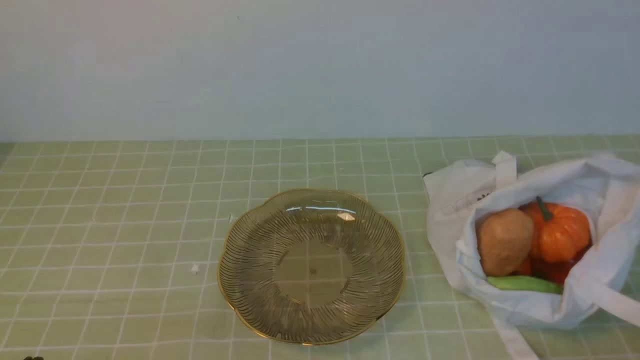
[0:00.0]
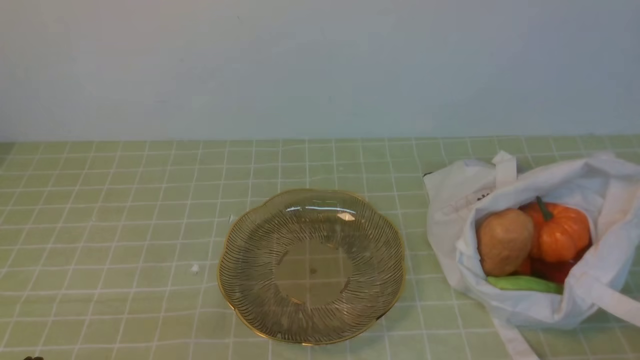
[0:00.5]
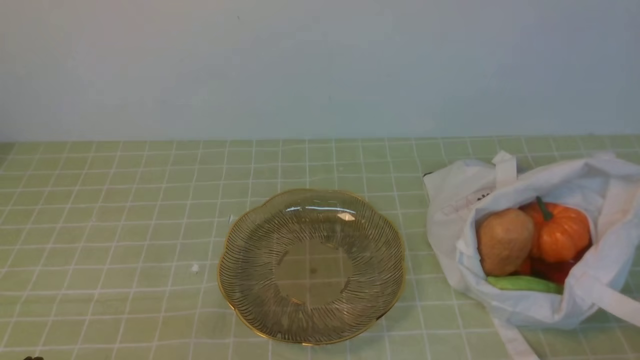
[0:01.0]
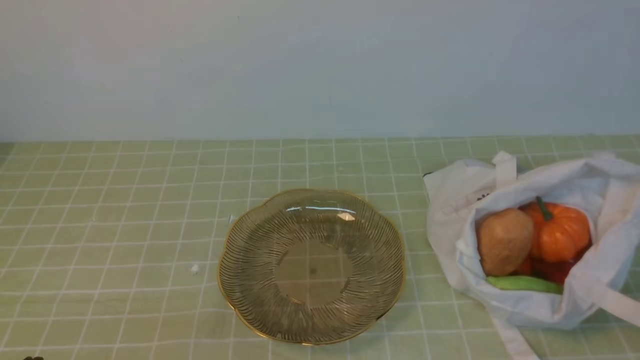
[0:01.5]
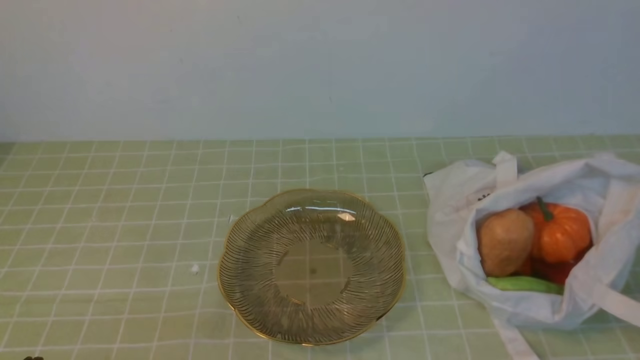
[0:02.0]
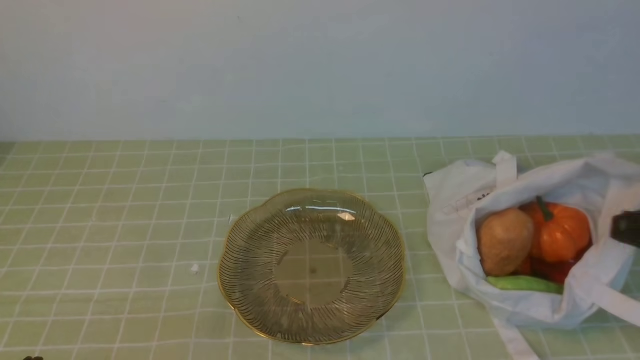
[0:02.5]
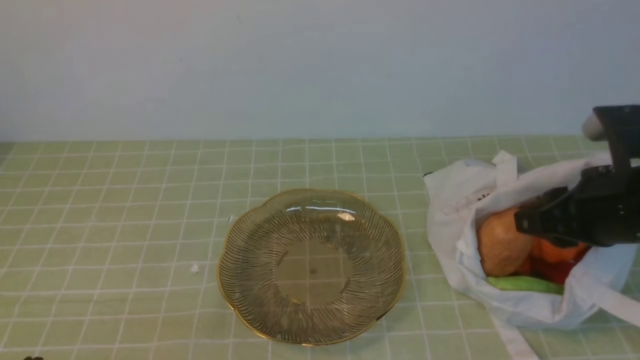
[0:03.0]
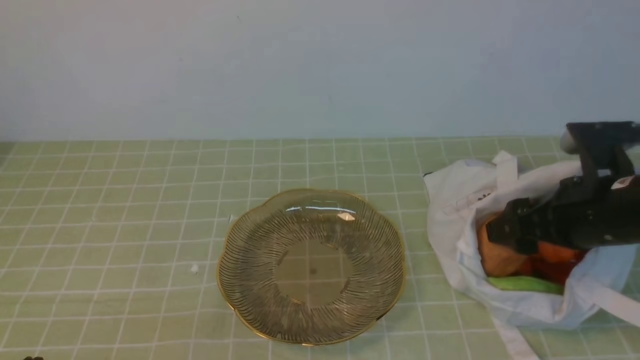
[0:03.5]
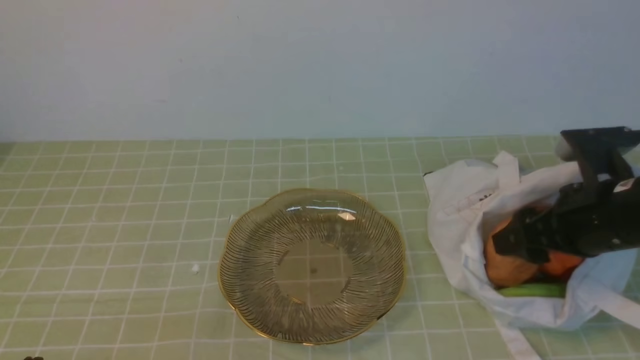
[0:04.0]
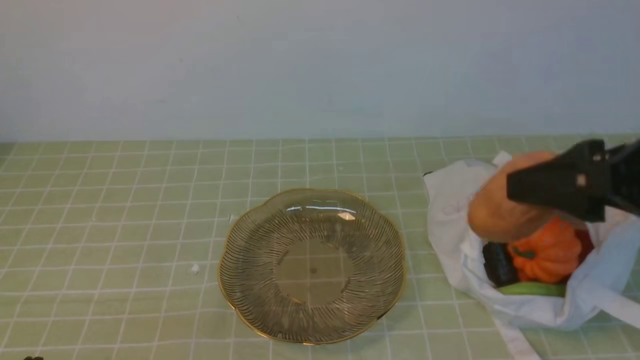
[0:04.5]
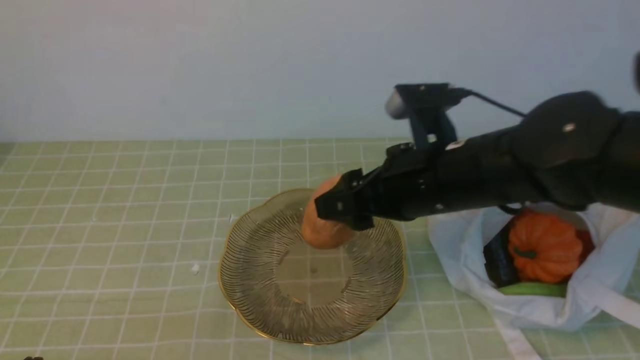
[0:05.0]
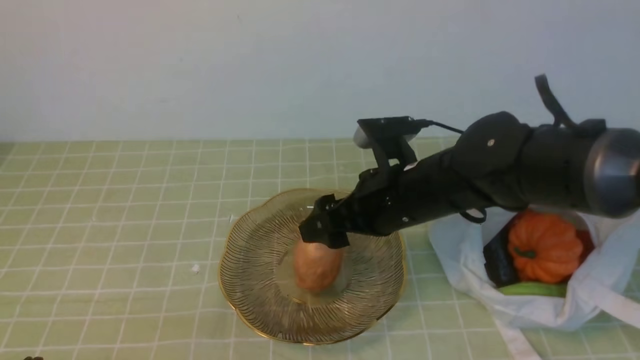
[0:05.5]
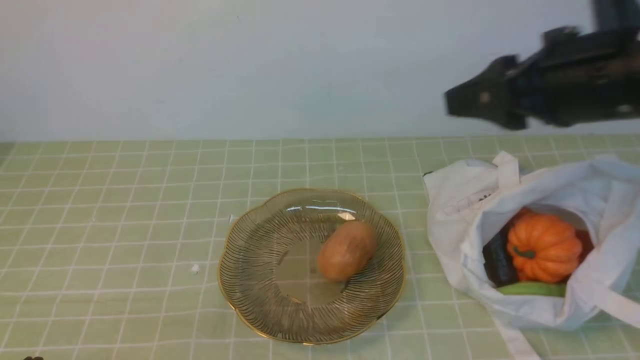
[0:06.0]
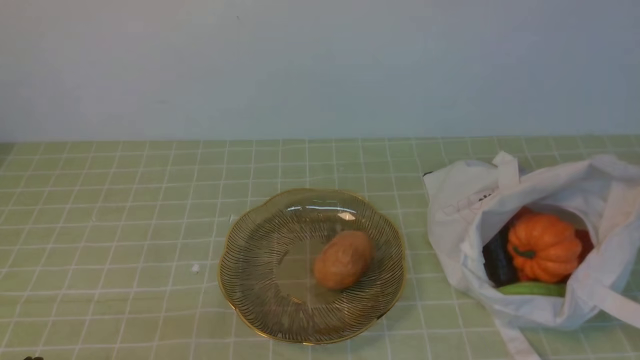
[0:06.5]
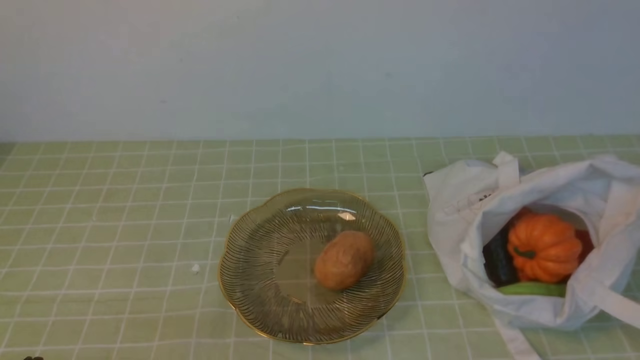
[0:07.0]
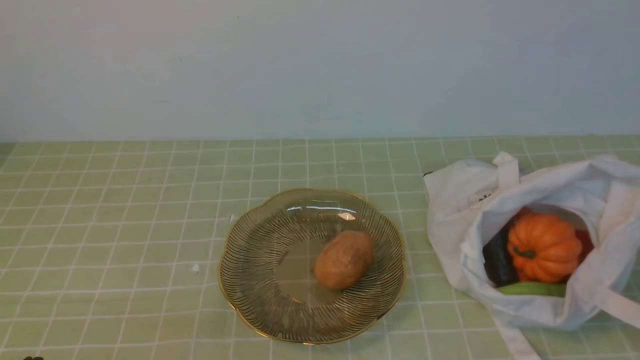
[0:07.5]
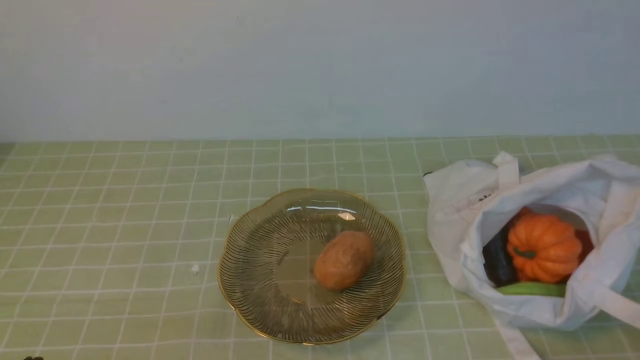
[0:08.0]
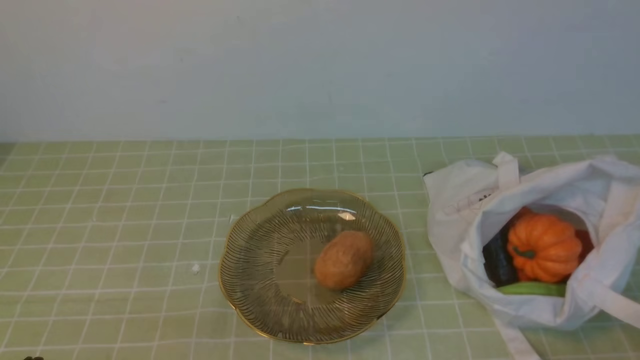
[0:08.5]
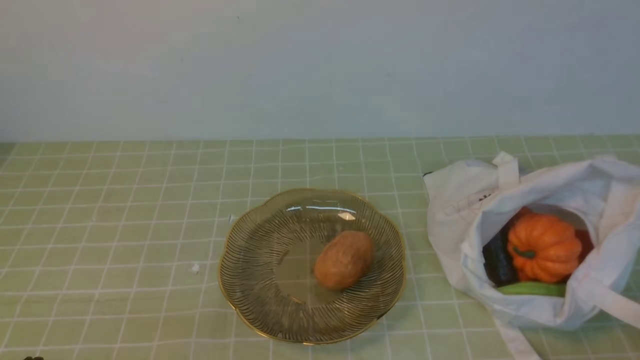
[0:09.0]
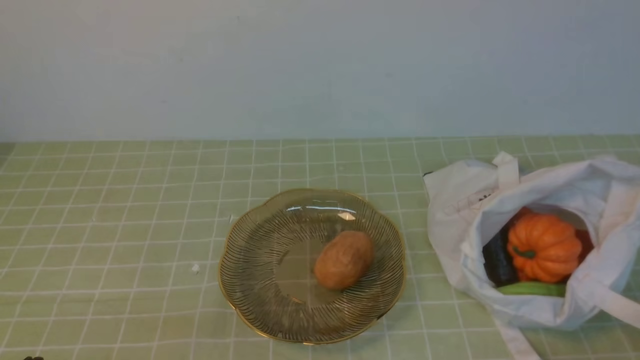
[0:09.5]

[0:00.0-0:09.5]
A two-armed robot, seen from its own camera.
Task of the whole recording: take vegetables from bag on green coffee tablecloth place on plate.
Step, 0:00.0 to 0:03.5: Grasp the potato with right gripper.
Step, 0:04.0 to 0:05.5: Place the potato on the plate with right gripper.
0:02.0 to 0:04.0: The right gripper shifts some 20 cm forward, and opens.
0:04.0 to 0:05.5: The right gripper shifts about 15 cm to the left.
0:05.5 to 0:07.5: The right gripper travels backward and to the right by approximately 35 cm, and closes its fingers.

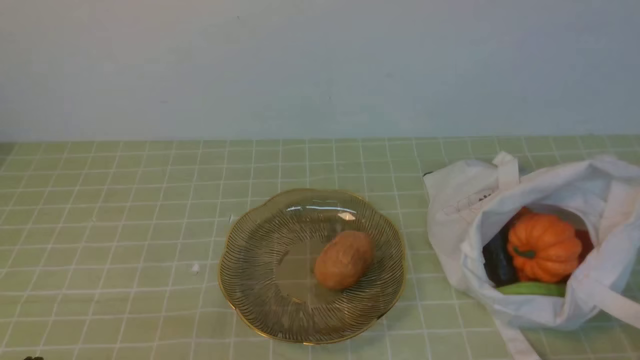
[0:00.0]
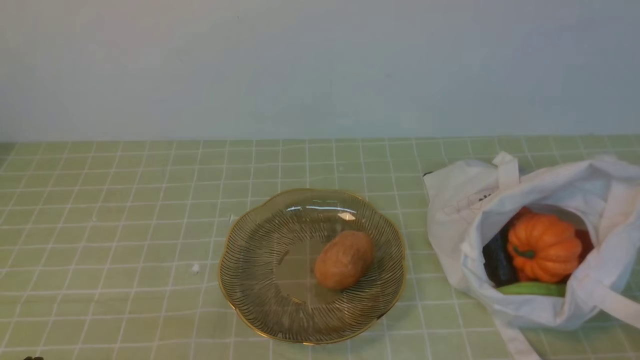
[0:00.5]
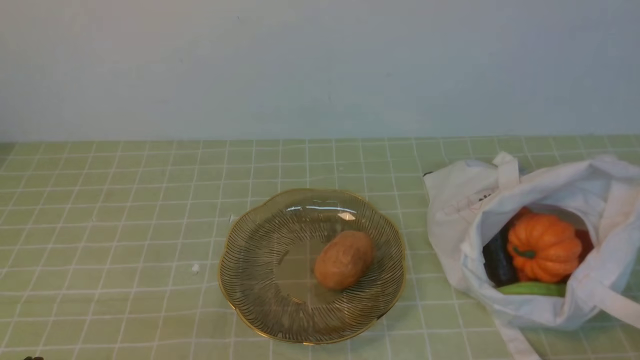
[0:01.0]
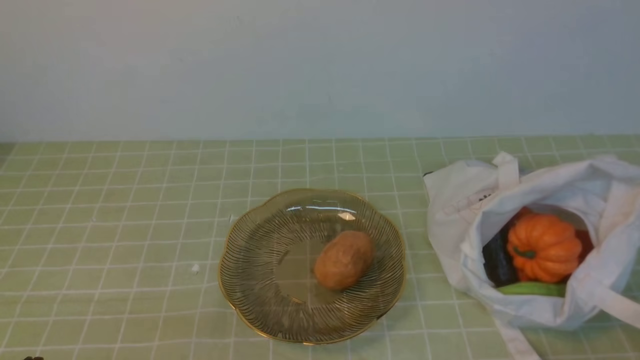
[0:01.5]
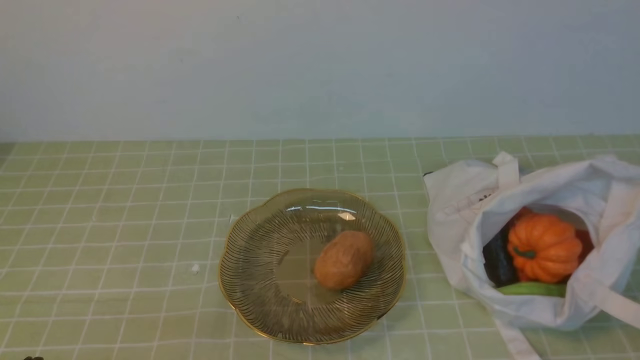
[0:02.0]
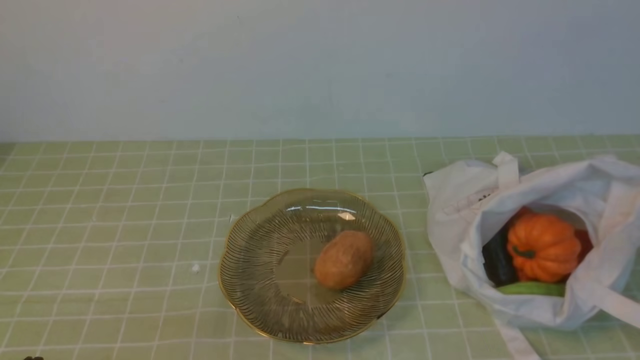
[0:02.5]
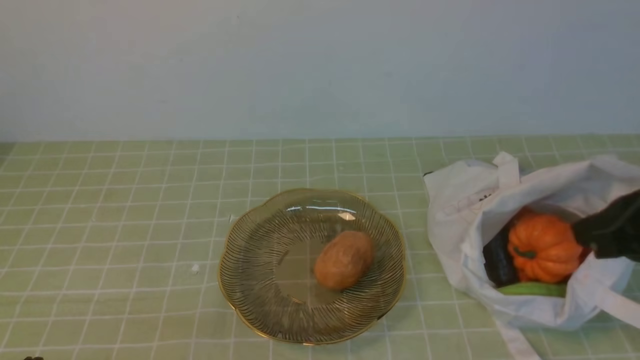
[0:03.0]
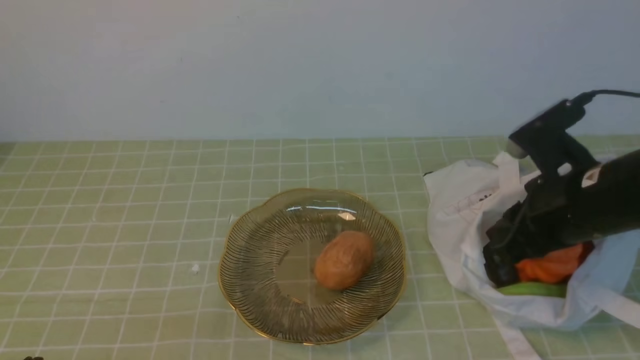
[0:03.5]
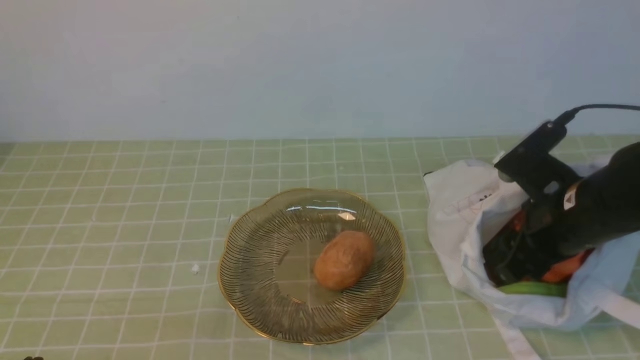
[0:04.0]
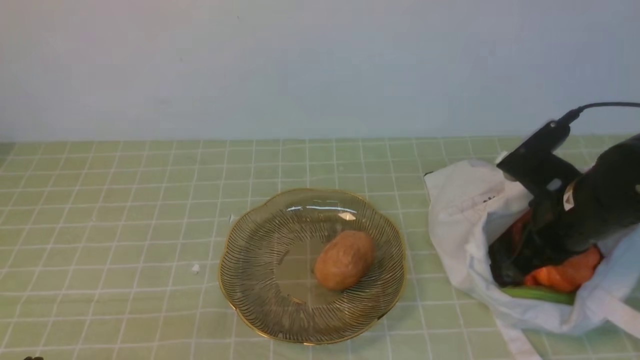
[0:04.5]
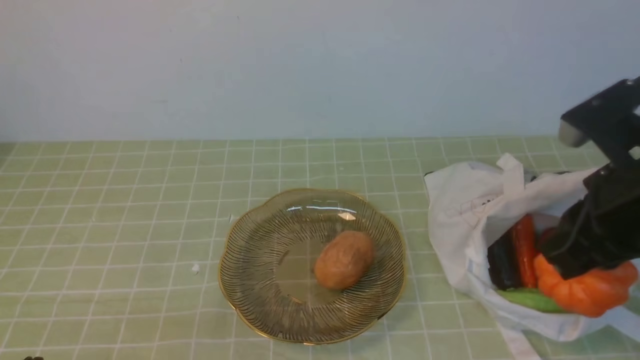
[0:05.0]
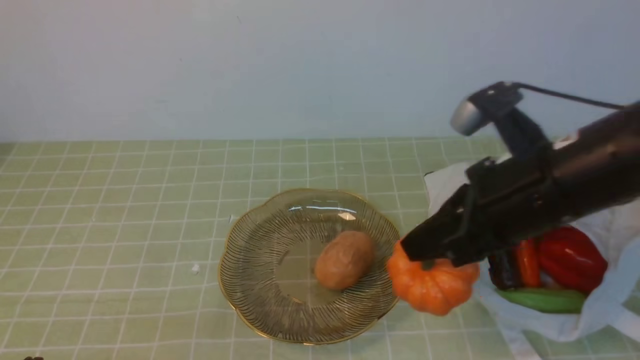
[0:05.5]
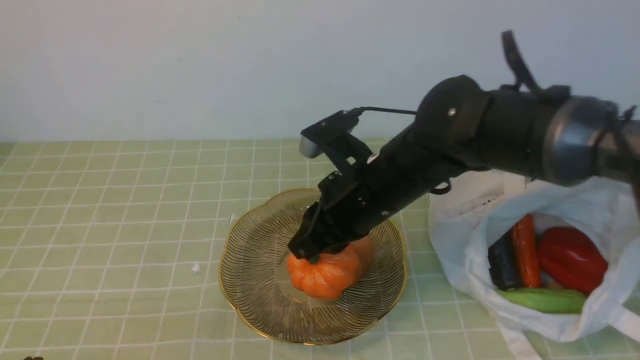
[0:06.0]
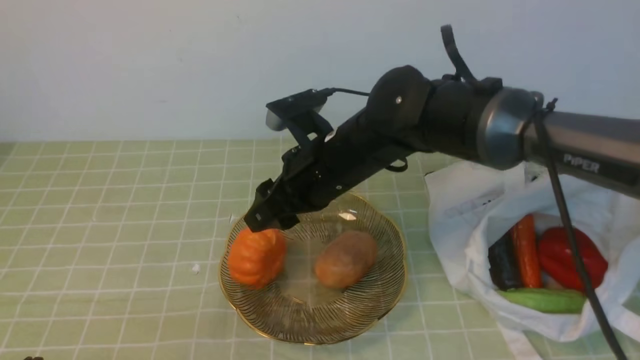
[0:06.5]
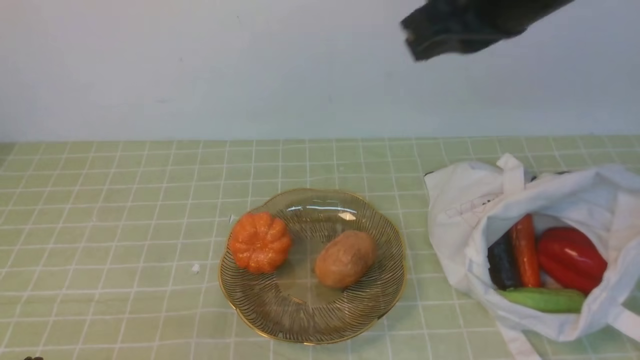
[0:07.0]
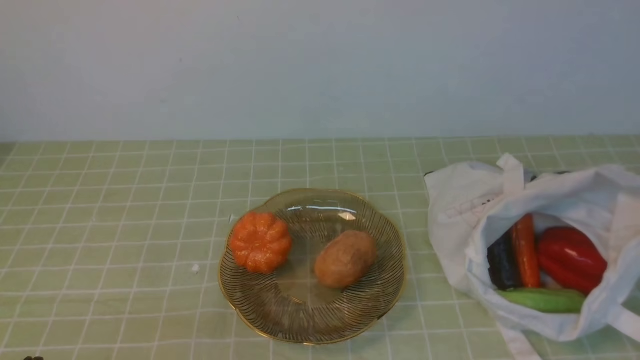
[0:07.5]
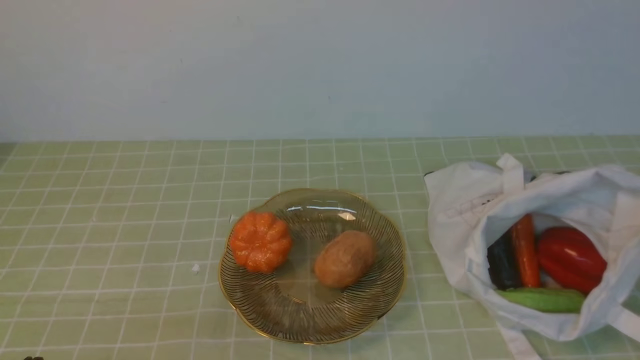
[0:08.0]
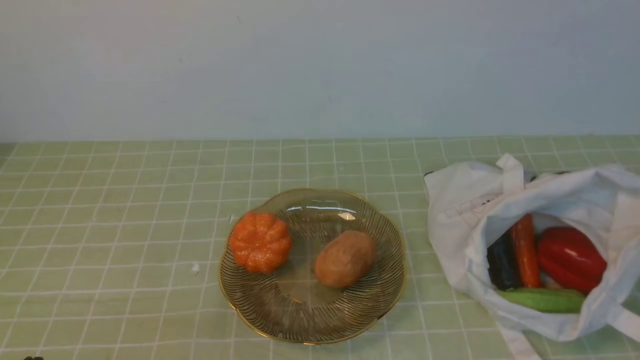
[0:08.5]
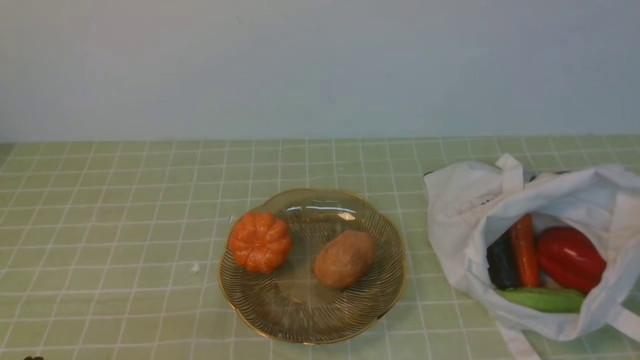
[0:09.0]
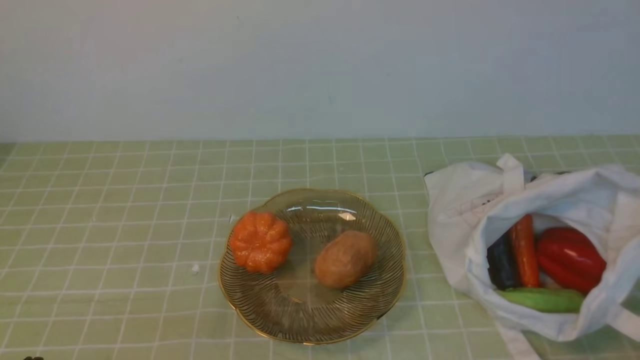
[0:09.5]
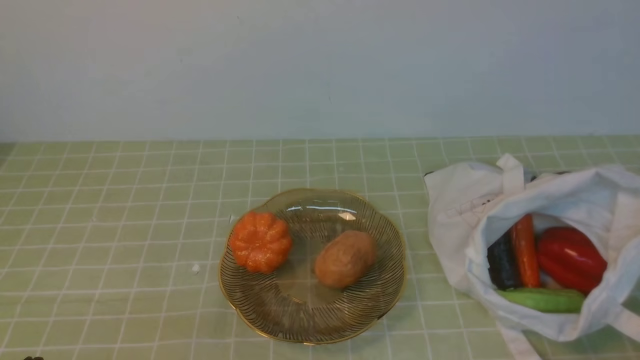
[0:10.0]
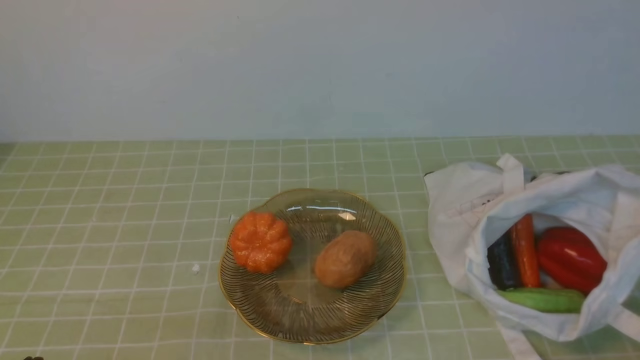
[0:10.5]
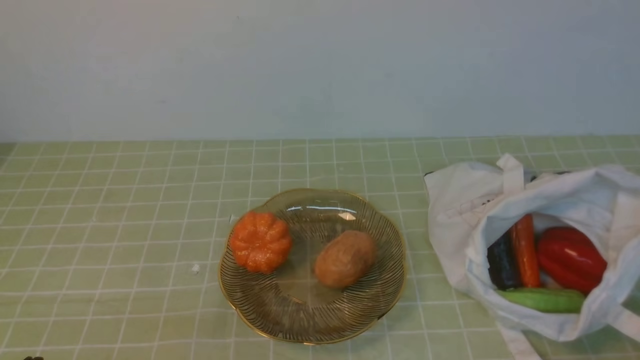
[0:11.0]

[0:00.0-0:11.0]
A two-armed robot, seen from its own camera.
Task of the whole recording: take vegetables from bag on green coffee tablecloth place on plate.
Step, 0:00.0 to 0:04.0: Grasp the pumpkin with right gripper.
Step, 0:05.0 to 0:06.5: Place the pumpkin on the plate with right gripper.
0:02.0 to 0:03.5: The right gripper moves forward and to the left, some 25 cm, and opens its fingers.
0:03.5 to 0:05.5: The right gripper travels to the left and upward by some 10 cm, and closes up.
0:05.5 to 0:07.5: The right gripper moves backward, to the right and upward, some 25 cm, and opens, then closes again.
